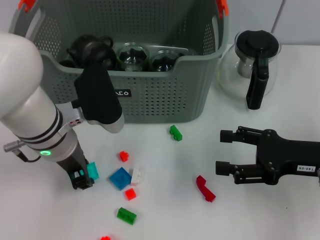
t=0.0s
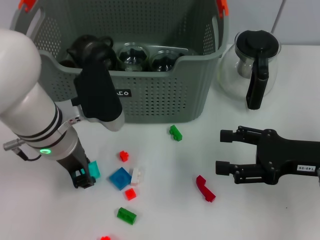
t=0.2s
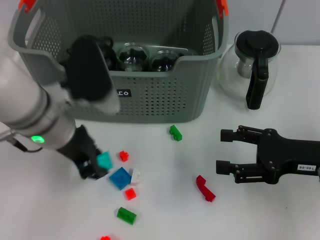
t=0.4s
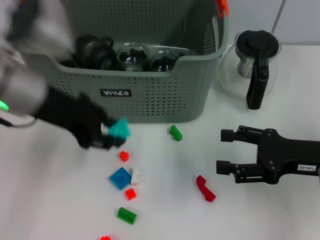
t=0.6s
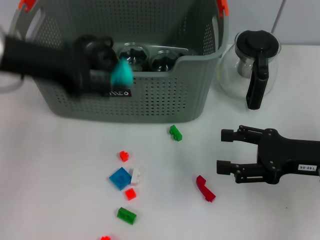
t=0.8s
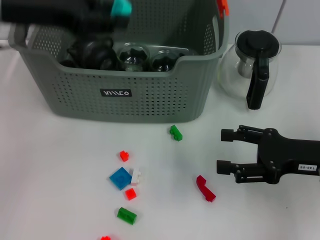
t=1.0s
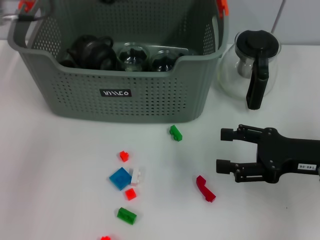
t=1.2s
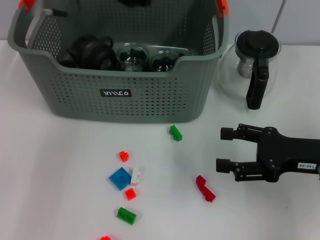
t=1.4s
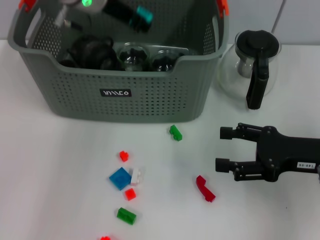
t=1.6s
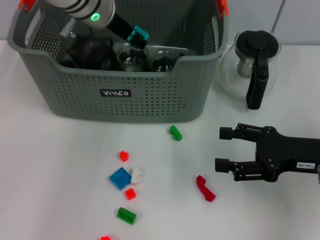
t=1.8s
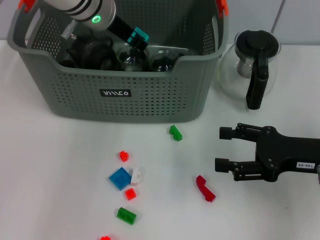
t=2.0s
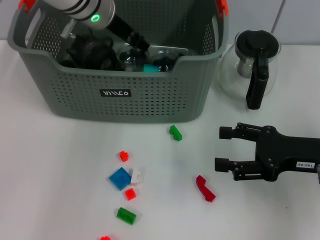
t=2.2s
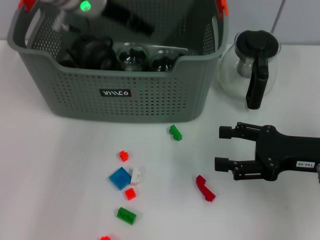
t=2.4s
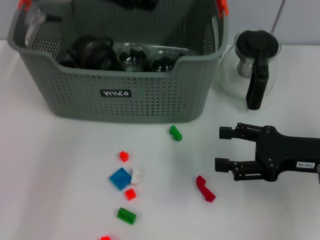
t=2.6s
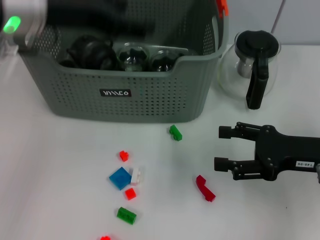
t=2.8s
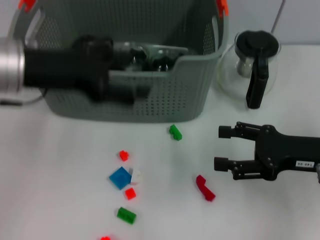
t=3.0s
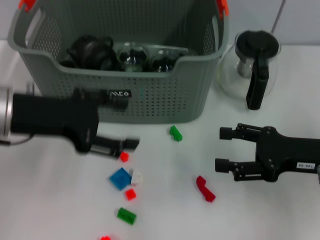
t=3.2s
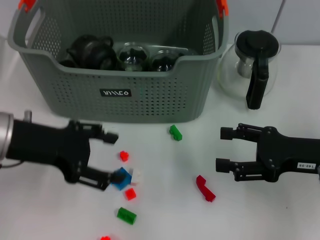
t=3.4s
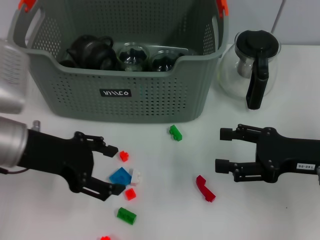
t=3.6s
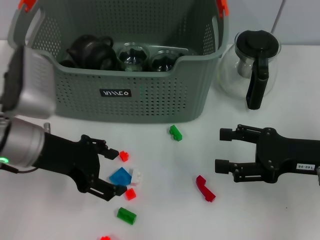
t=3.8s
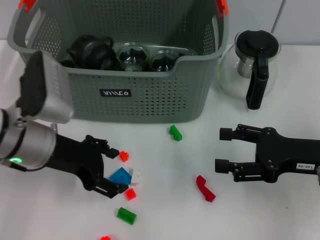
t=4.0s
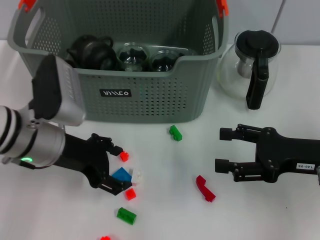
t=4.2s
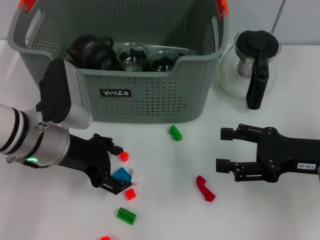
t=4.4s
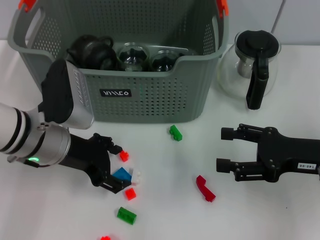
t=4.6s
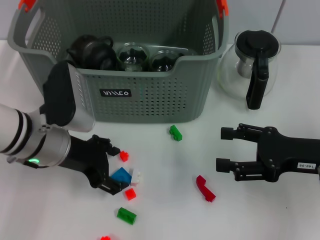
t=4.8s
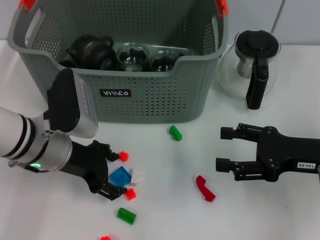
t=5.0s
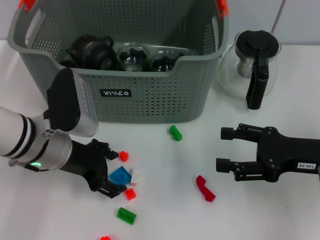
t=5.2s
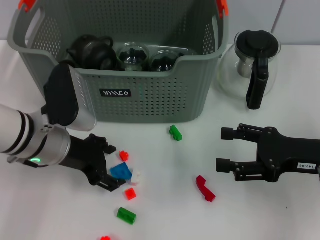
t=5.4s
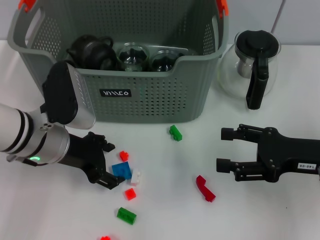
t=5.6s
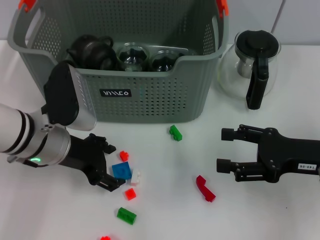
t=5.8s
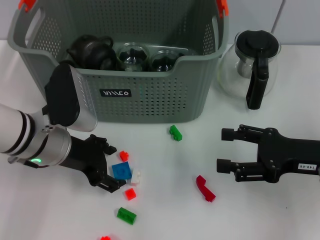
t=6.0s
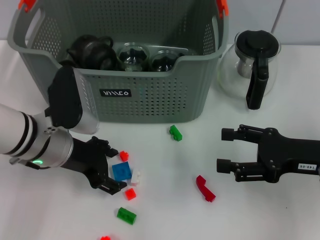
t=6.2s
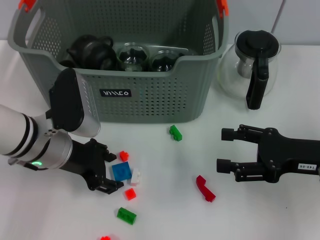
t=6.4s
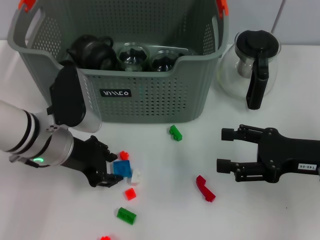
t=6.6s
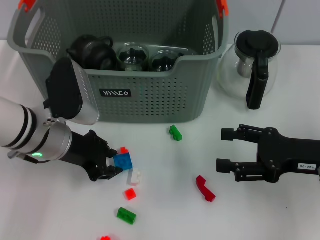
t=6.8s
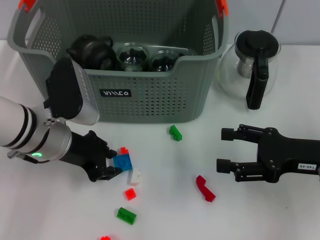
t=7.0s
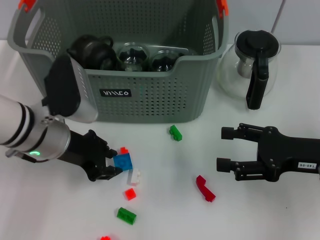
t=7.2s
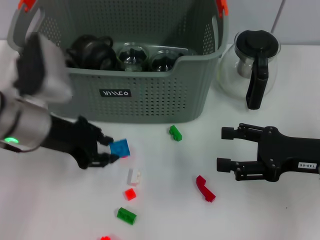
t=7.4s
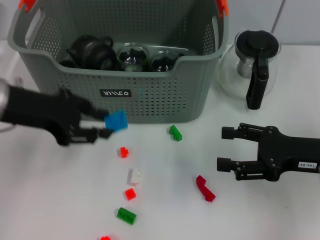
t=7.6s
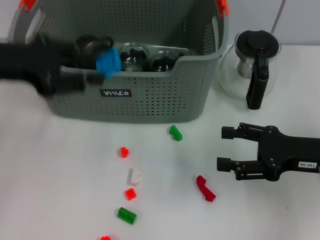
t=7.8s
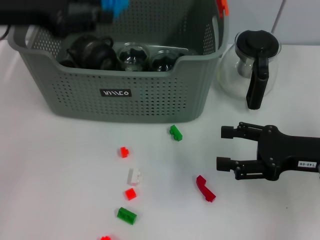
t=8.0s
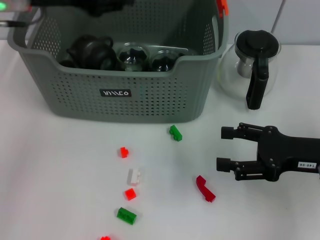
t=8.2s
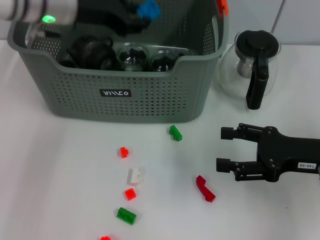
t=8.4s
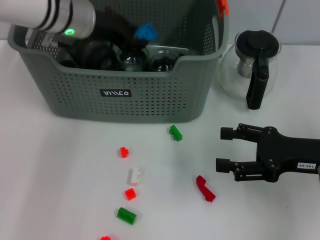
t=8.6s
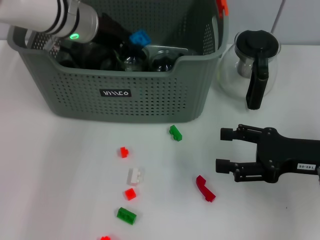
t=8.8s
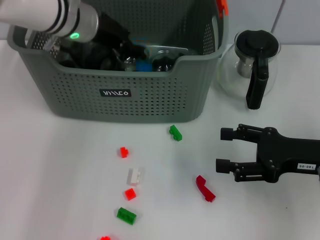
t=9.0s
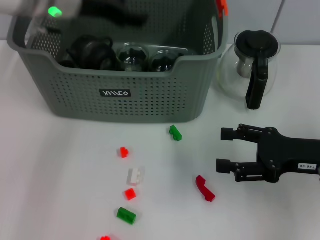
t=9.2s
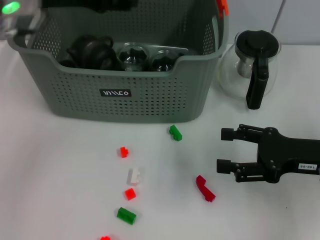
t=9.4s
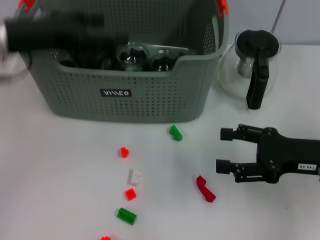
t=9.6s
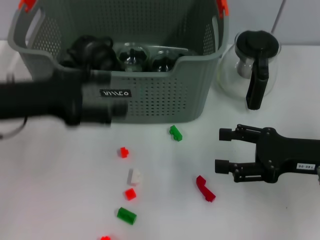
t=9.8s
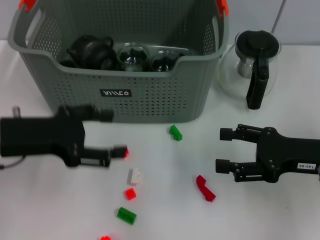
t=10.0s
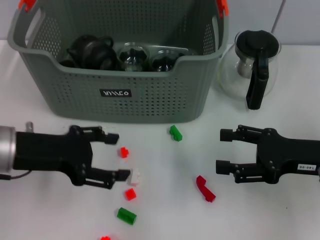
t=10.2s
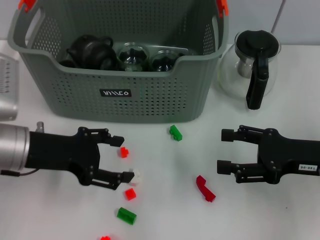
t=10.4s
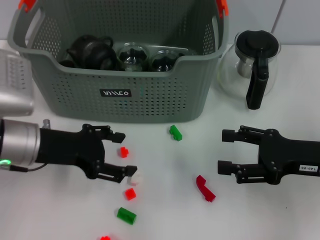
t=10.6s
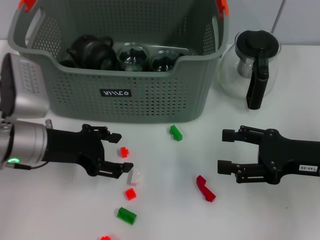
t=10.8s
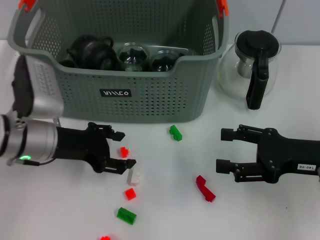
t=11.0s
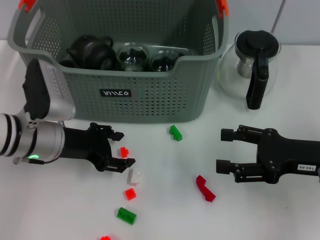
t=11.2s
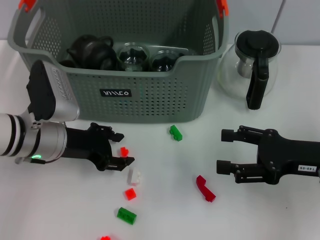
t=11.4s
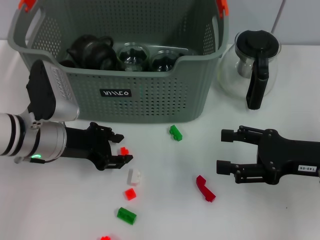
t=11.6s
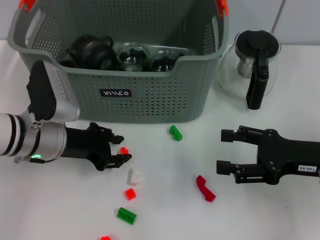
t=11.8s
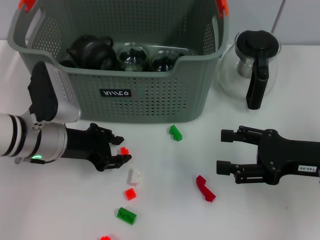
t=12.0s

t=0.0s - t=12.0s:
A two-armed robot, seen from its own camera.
Task of the whole recording: pick up the teacup on the table and place it into the storage bin, pick up the block on the table and place it into the storage bin.
Step, t=0.2s - t=2.2s: Place the light blue block in the storage box with left gripper.
Step, t=2.4s - t=6.6s: Grasp the dark blue block with left gripper.
Step, t=6.8s - t=9.0s: Place the dark blue block in the storage box with left gripper.
t=0.0s - t=1.6s: The left gripper goes some 20 cm forward and upward.
t=1.6s - t=3.0s: The left gripper heads backward and to the left, covering about 15 cm, and opens up.
t=3.0s - t=4.4s: The left gripper travels downward by some 10 cm.
t=4.4s - t=6.0s: There are only small adjustments of the grippers.
t=6.0s - t=7.6s: The left gripper moves upward and to the left, about 10 cm, and closes.
t=7.6s - t=9.0s: The left gripper moves forward and to the right, about 15 cm.
t=9.0s - t=10.4s: The left gripper goes approximately 20 cm backward and to the left, and opens its fingers.
t=10.4s - t=12.0s: The left gripper travels downward by some 5 cm, and closes up.

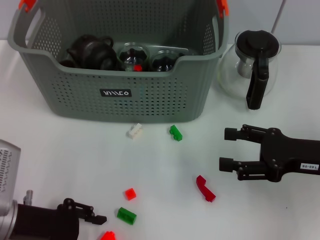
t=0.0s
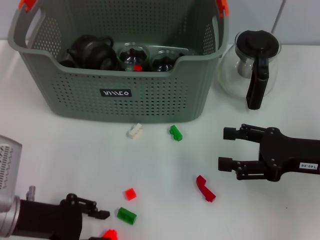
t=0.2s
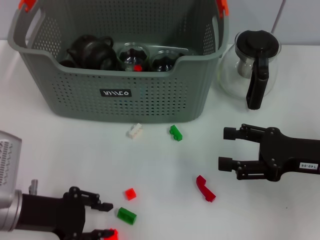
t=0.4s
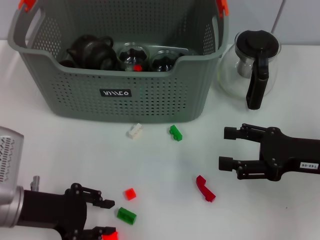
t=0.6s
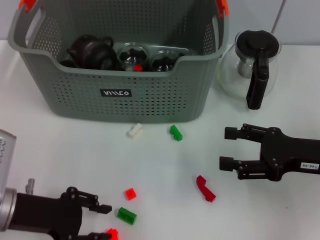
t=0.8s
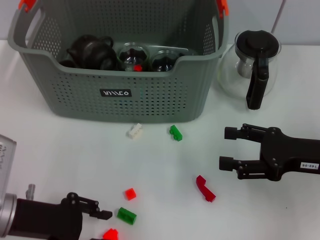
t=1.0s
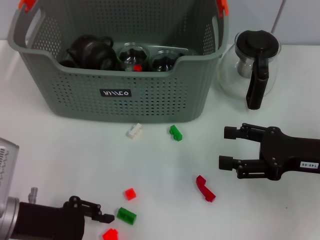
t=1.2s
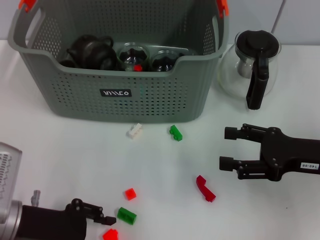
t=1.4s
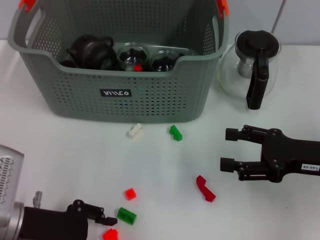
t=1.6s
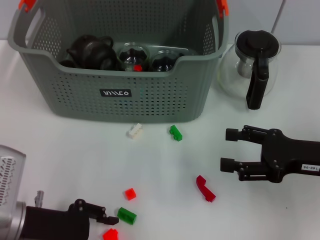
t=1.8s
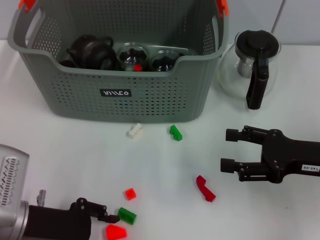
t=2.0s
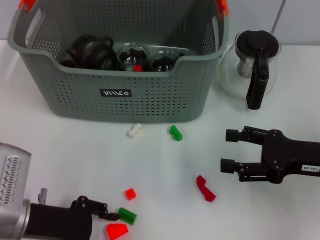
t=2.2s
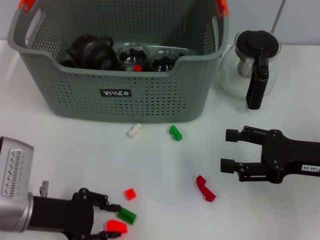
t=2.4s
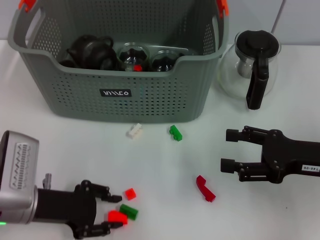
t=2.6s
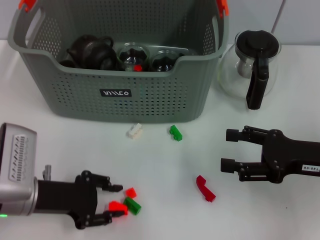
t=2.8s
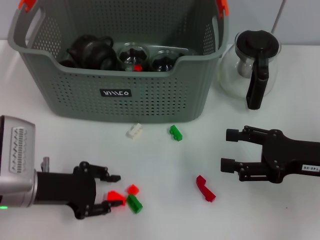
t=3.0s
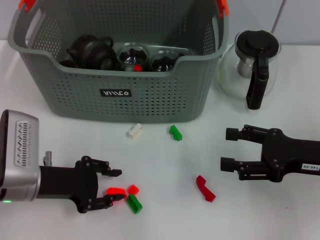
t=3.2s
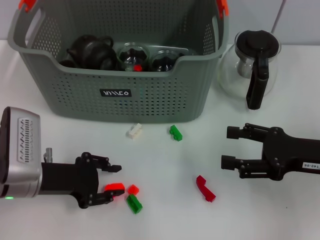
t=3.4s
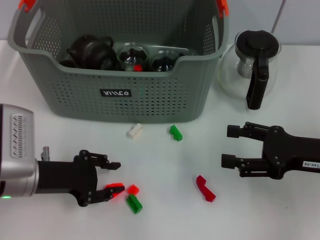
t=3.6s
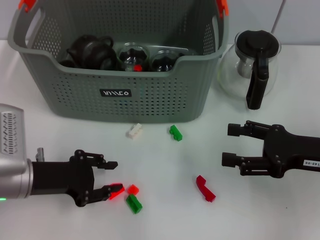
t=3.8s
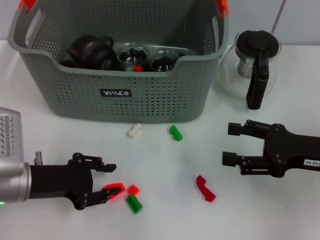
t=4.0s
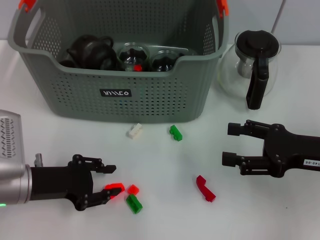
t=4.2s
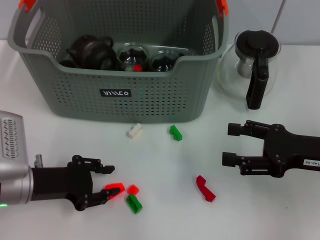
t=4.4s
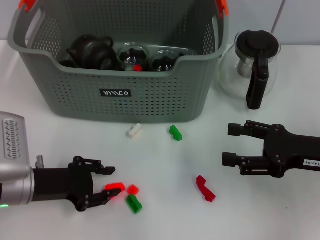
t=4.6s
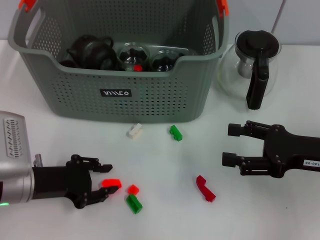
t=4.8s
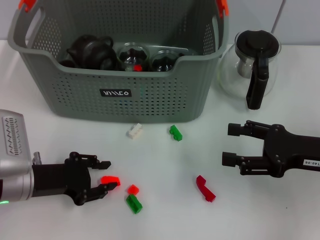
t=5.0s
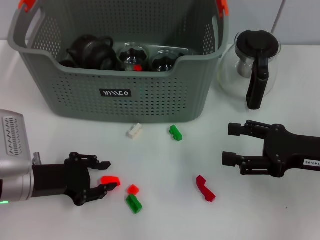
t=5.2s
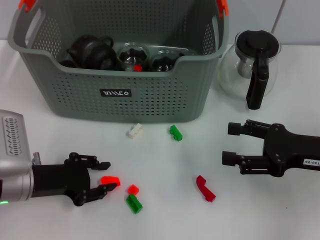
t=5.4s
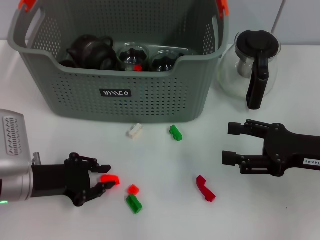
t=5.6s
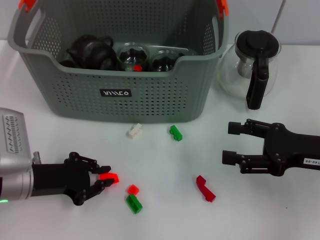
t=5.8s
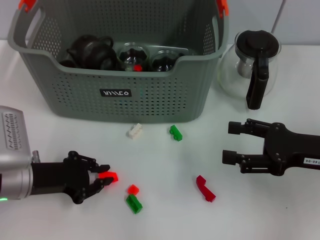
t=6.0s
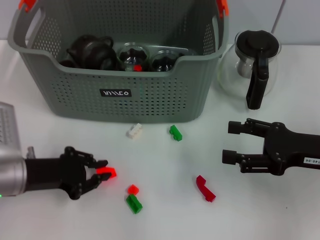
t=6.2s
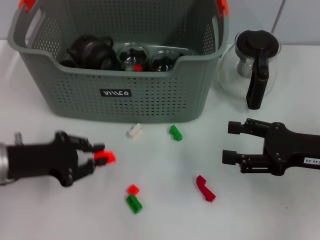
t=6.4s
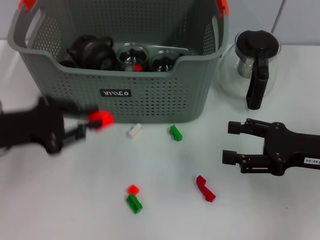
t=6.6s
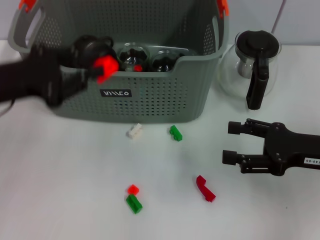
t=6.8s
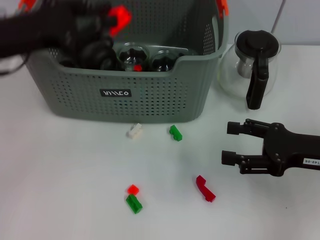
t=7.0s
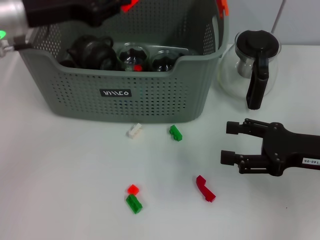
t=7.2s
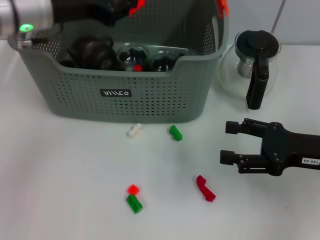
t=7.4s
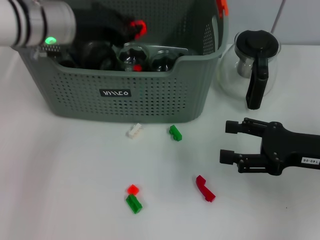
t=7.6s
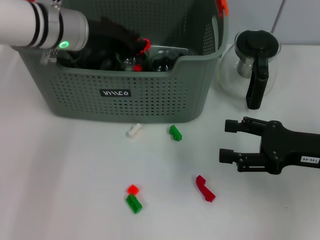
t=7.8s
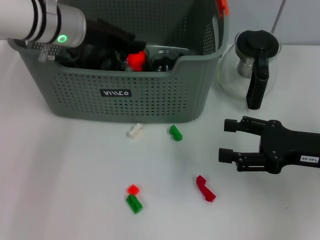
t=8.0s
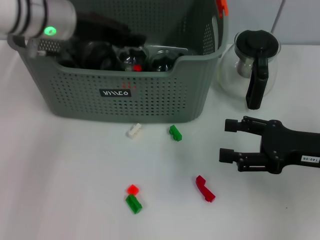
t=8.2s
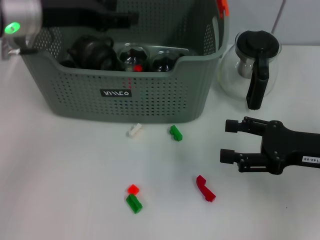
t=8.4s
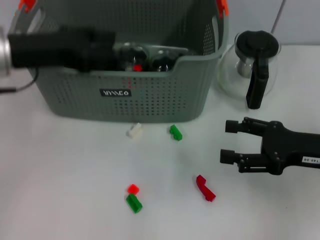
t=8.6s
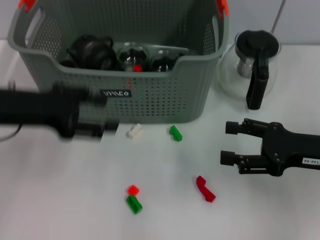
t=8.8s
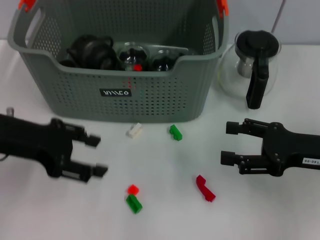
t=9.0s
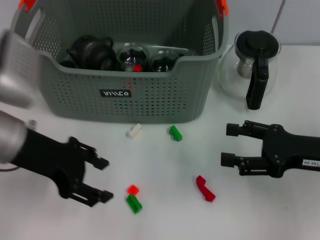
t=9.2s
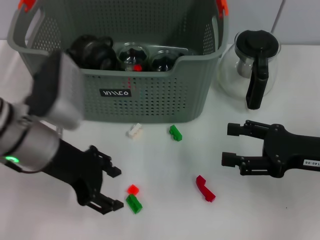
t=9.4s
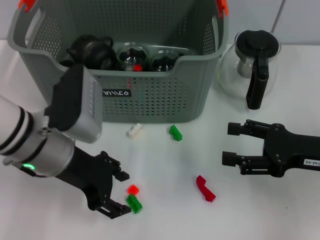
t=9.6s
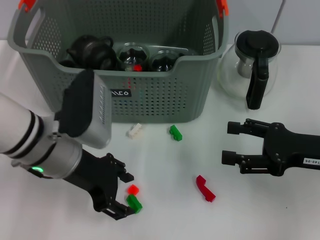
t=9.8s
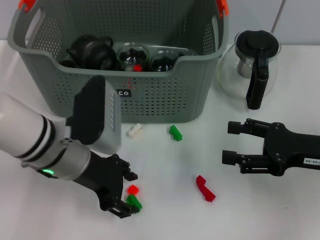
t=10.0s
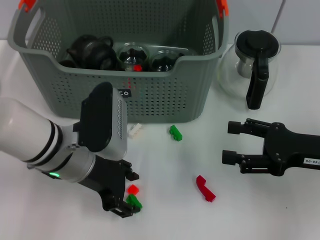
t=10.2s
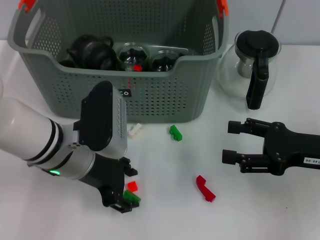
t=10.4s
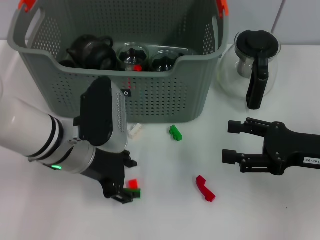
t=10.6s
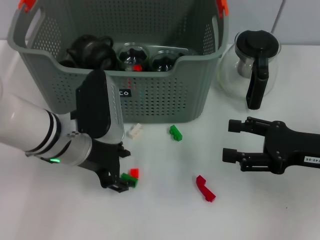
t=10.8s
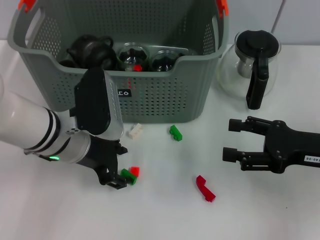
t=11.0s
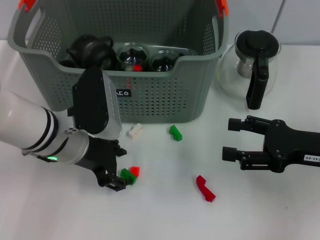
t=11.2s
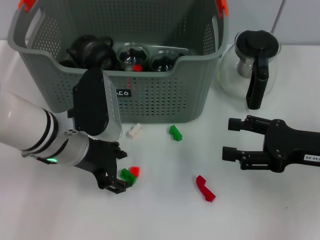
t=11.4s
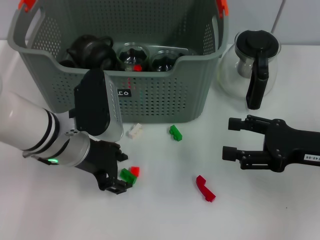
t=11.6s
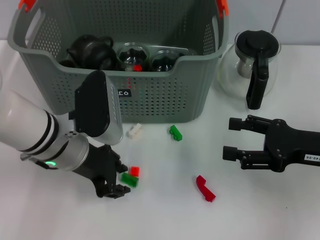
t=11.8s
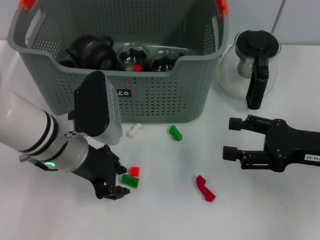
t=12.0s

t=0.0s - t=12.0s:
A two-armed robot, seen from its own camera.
Task of the whole recording: pick up the teacup on the table and place it into the storage bin, pick up the block on the table and place it into the storage bin.
Step, t=0.0s - t=5.6s: Grasp the orange block with left gripper.
Step, t=6.0s - t=8.0s: Place the orange block in the storage box with left gripper.
t=0.0s - t=4.4s: There are only small adjustments of the grippers.
t=4.4s - t=6.0s: The two grippers keep their place.
t=6.0s - t=7.6s: The left gripper heads forward, upward and to the right, covering about 20 cm.
t=7.6s - t=9.0s: The left gripper heads backward and to the left, covering some 15 cm, and opens.
t=9.0s - t=10.4s: The left gripper travels to the right and downward by approximately 15 cm.
t=10.4s - t=12.0s: The grippers make only small movements.
